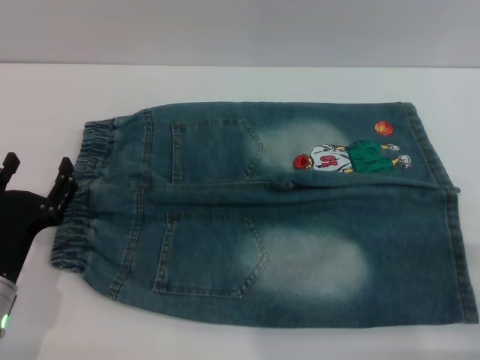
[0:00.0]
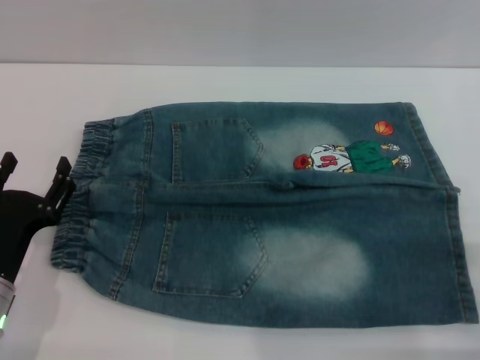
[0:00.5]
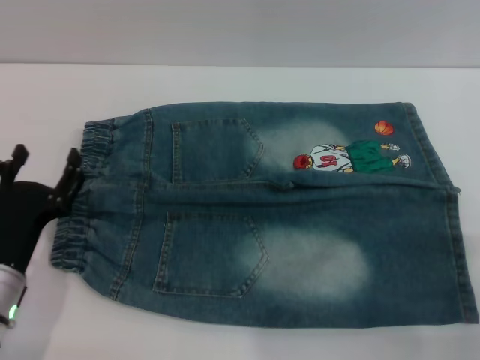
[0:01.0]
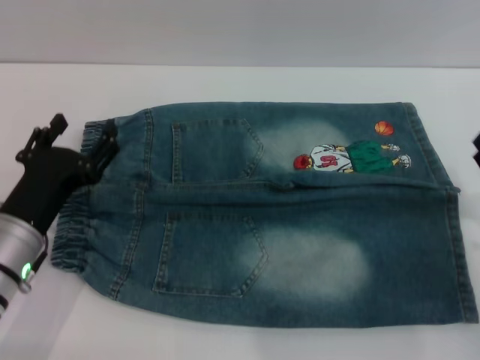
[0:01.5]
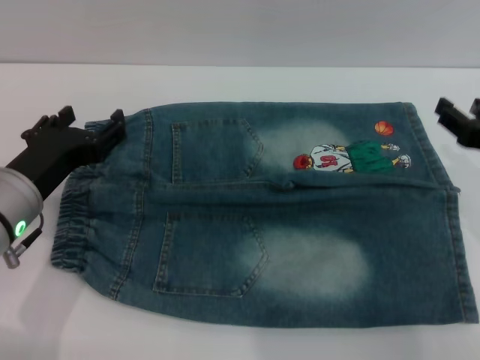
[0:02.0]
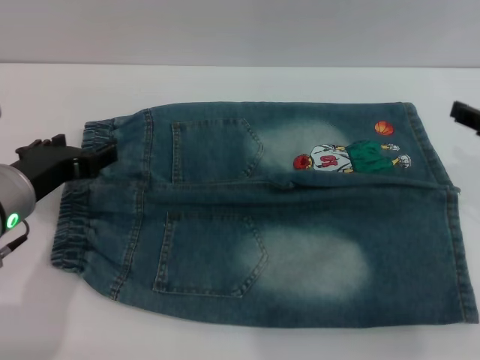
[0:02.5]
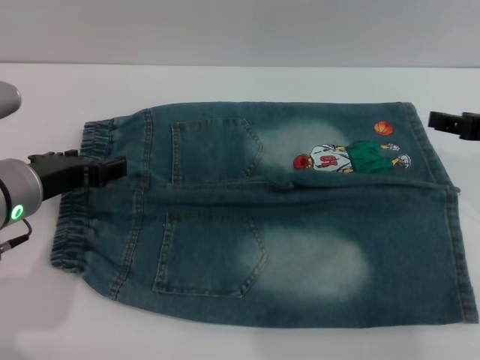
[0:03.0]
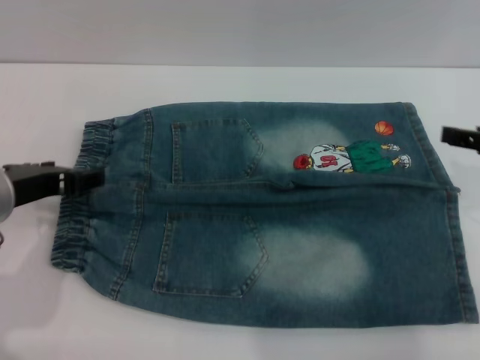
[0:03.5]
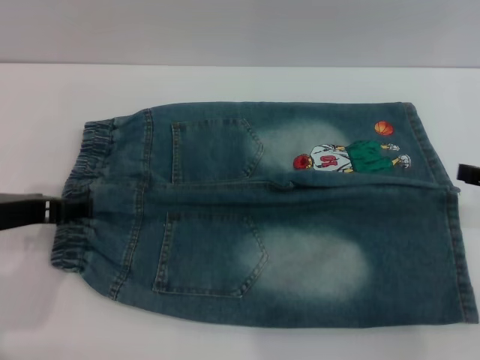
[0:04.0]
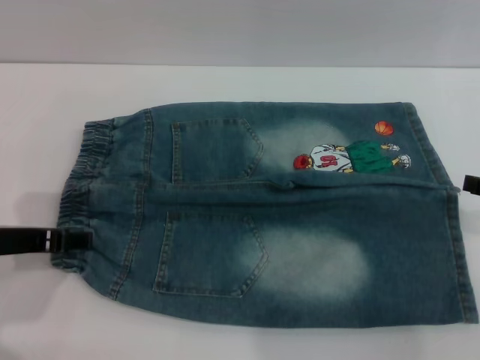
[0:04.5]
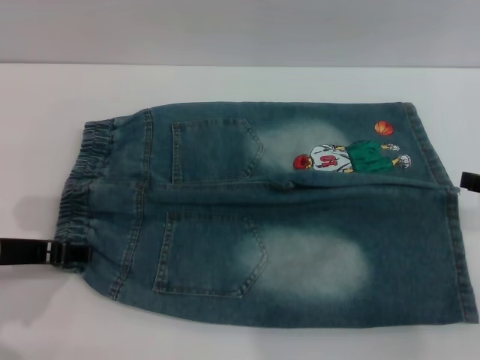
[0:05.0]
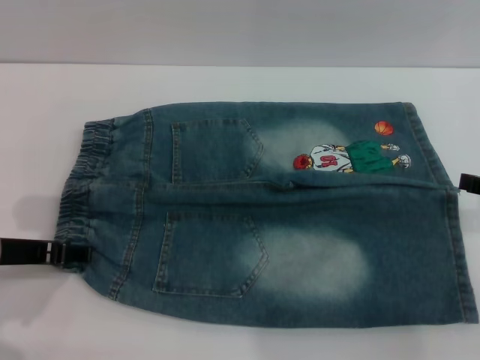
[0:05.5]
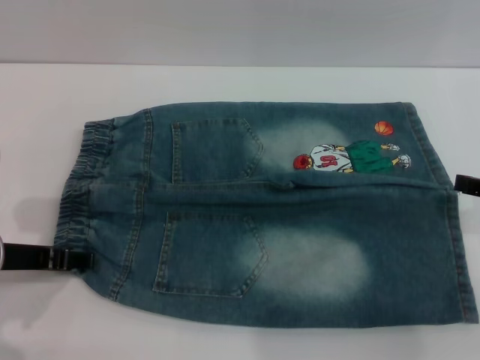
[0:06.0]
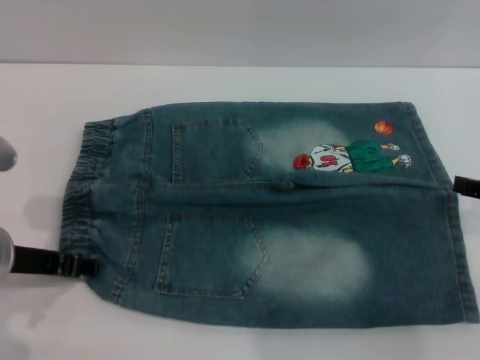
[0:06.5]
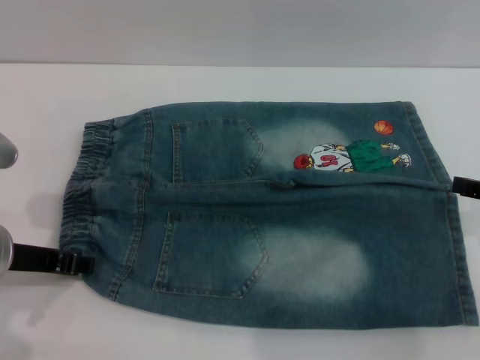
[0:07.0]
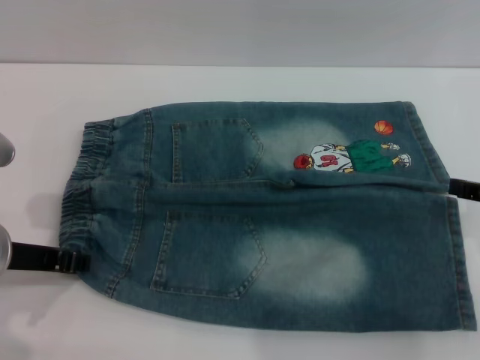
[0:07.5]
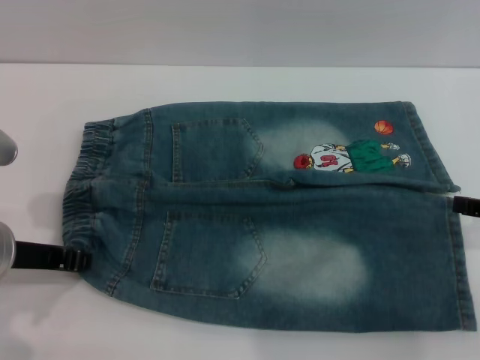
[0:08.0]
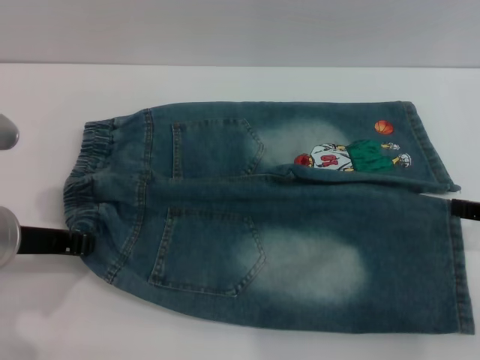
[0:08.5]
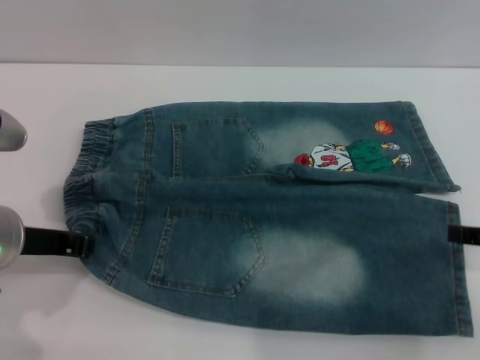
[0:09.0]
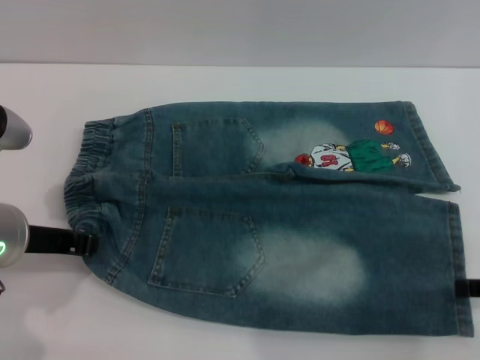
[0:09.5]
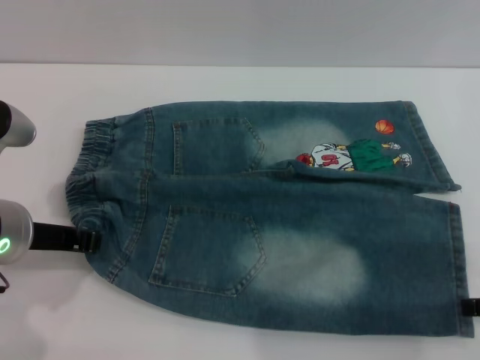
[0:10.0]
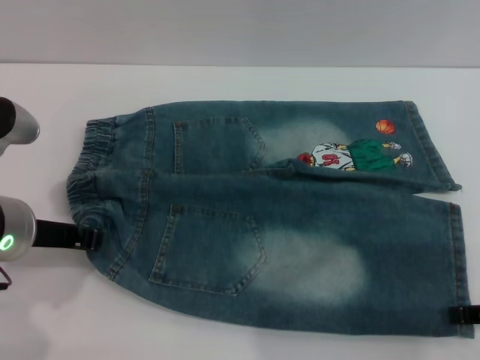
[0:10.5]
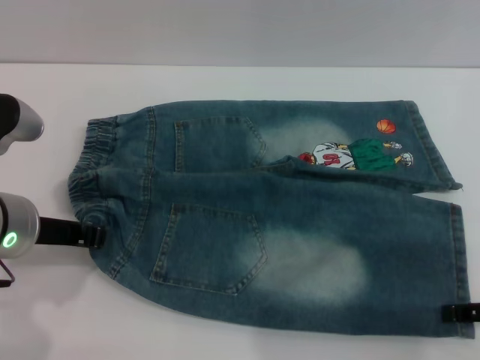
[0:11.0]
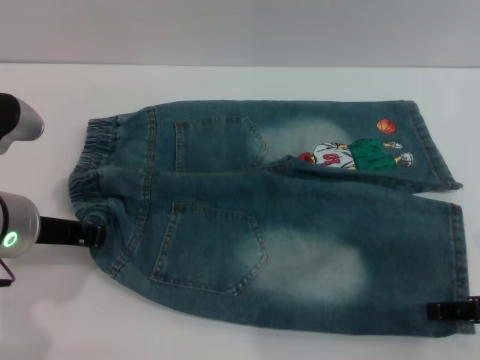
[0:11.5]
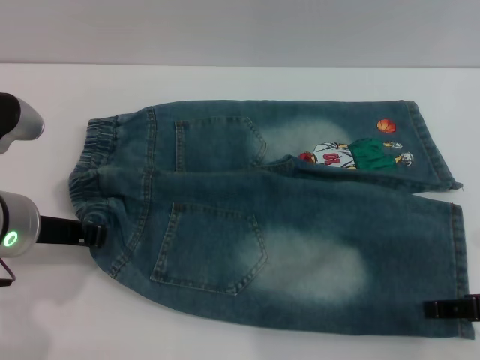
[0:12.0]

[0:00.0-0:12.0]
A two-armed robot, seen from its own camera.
0:00.0 to 0:02.0: Both grippers travel together upward and forward, approximately 15 cm.
0:02.0 to 0:04.0: The left gripper moves roughly 5 cm. The right gripper ends up roughly 5 cm from where it was.
0:04.0 to 0:06.0: The grippers make only small movements.
0:06.0 to 0:08.0: The left gripper closes up.
0:08.0 to 0:10.0: There are only small adjustments of the grippers.
0:10.0 to 0:12.0: The grippers make only small movements.

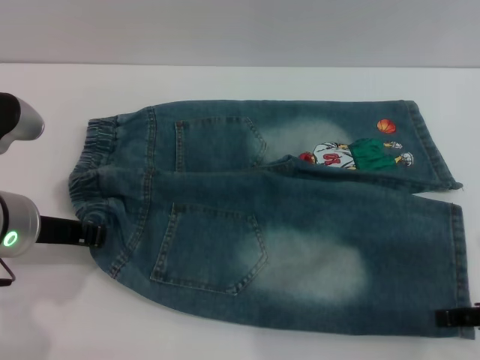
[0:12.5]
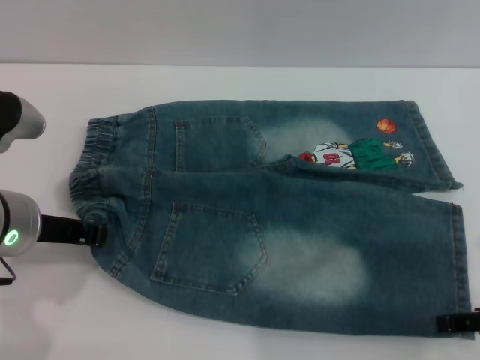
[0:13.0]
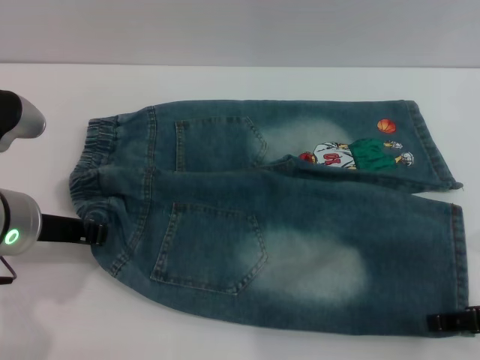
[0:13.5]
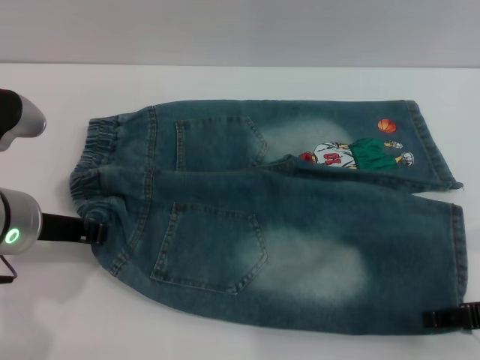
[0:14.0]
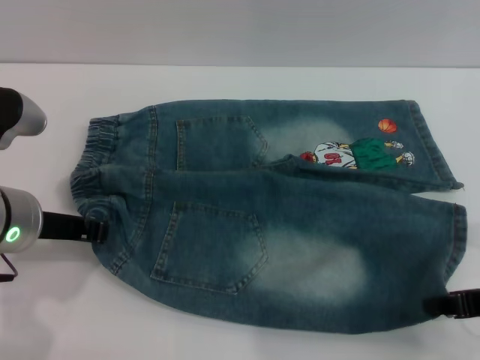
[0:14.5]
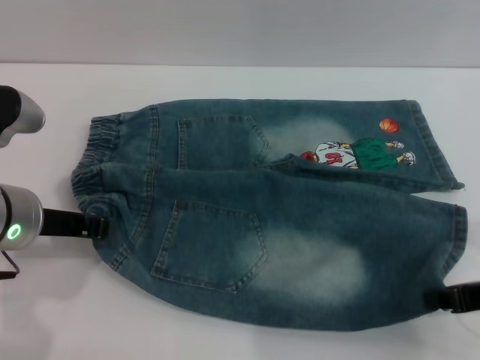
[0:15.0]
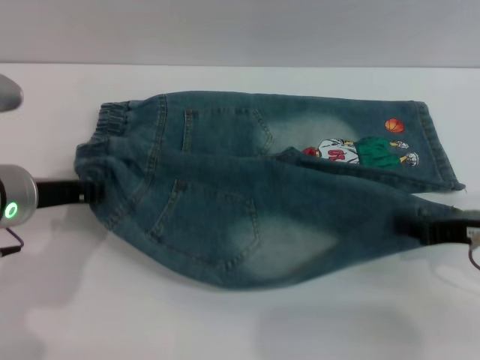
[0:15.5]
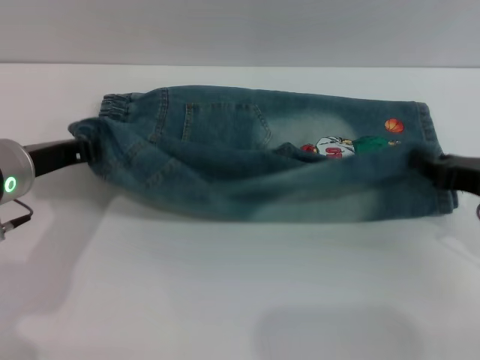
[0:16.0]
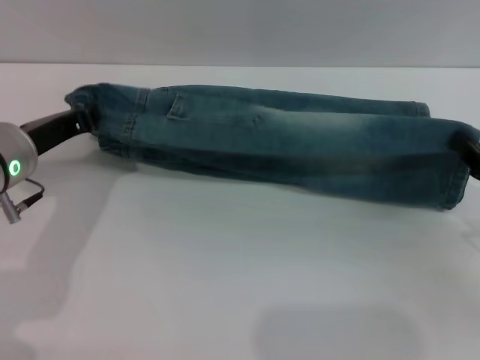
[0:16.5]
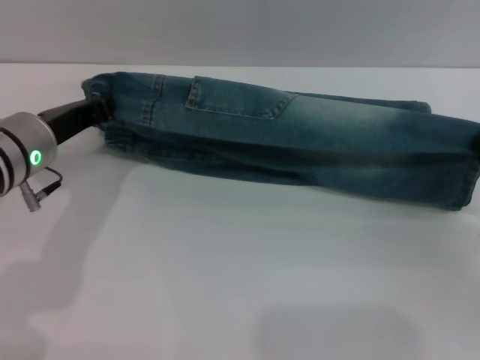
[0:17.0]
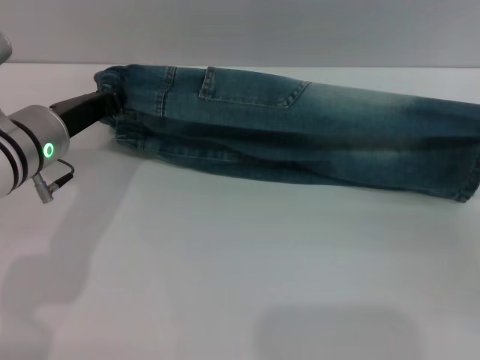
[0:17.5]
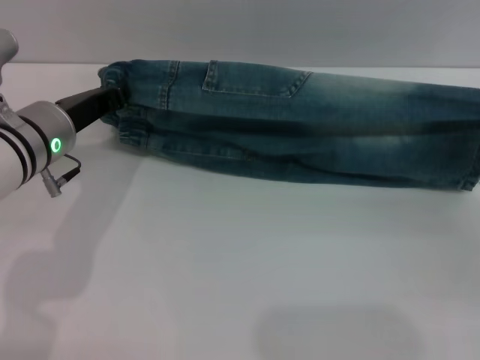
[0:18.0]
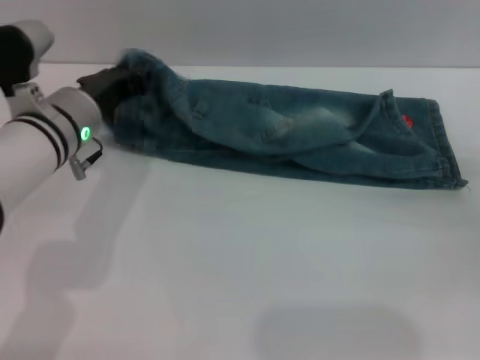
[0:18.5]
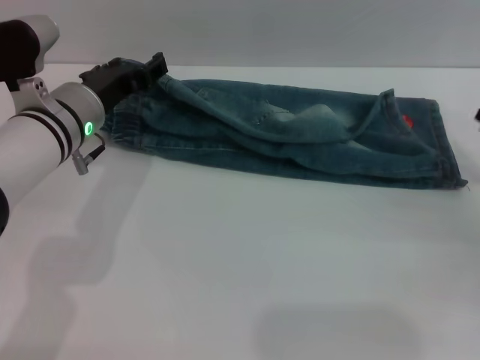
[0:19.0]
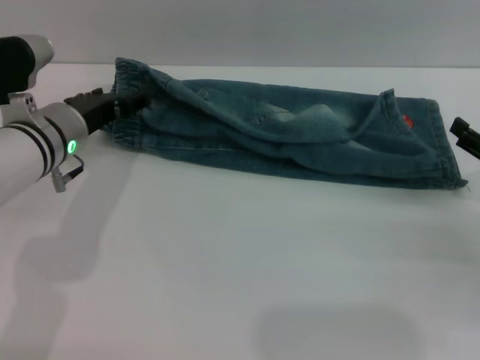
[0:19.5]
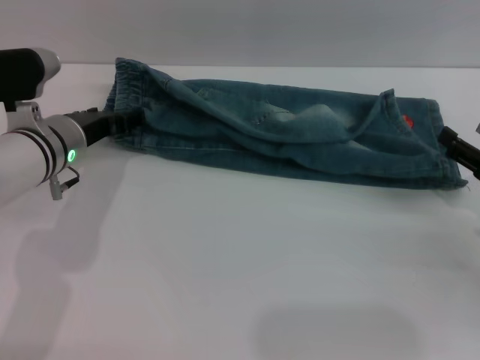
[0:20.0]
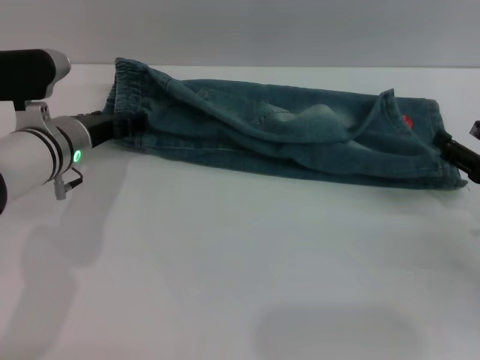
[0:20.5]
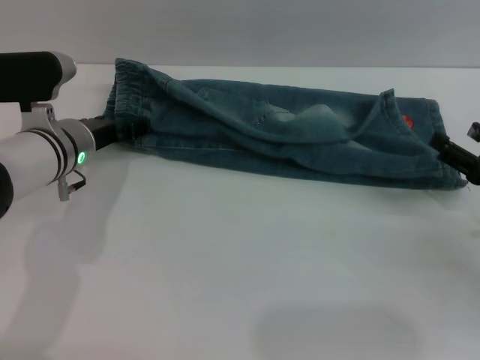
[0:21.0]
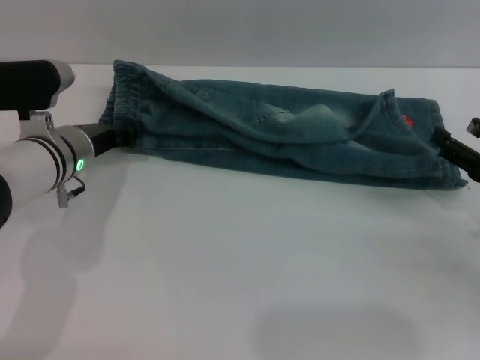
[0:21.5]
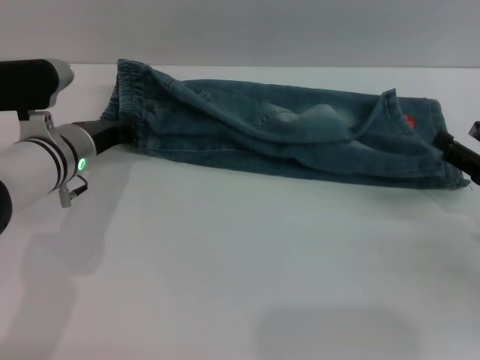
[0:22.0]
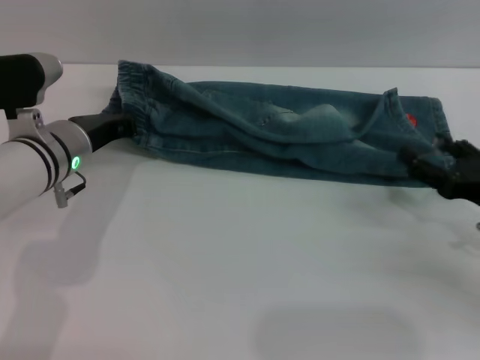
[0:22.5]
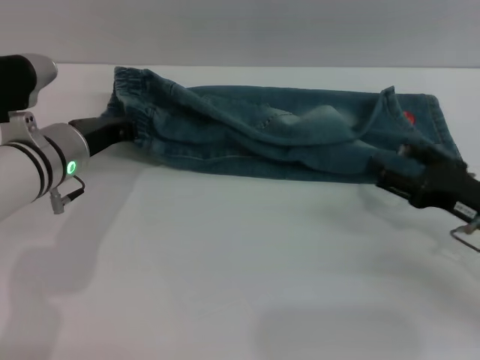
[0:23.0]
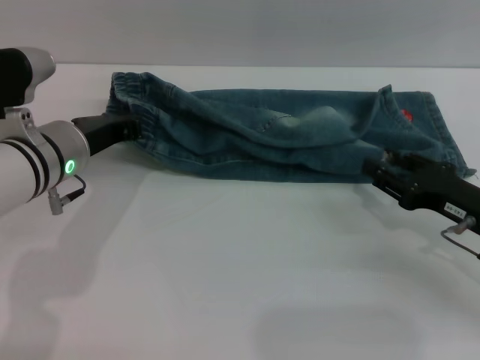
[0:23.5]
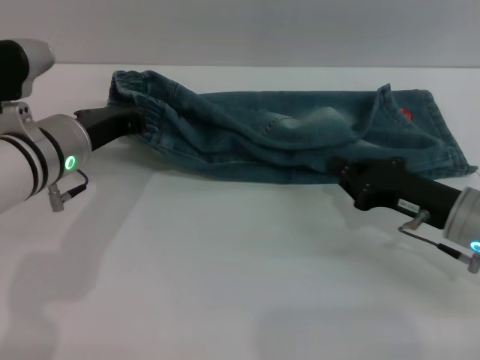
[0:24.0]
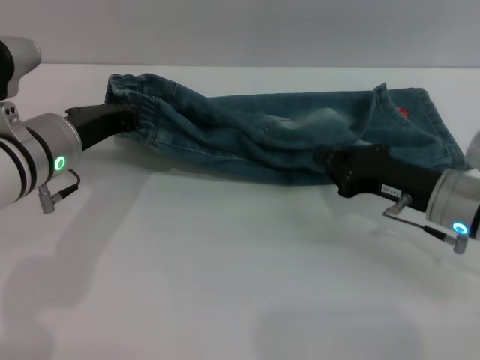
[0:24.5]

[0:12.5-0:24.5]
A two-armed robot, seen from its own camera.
Step, 0:12.5 to 0:19.0: Fold the bottom of the pants upward with both grippers.
0:12.5 to 0:14.5: The grippers stay close to where they were, moving slightly.
0:14.5 to 0:16.5: The right gripper moves approximately 5 cm, and closes up.
0:16.5 to 0:18.5: The right gripper goes about 10 cm to the right and forward, while the left gripper travels forward by about 5 cm.
0:18.5 to 0:20.5: The right gripper ends up some 5 cm from where it was, and opens its fingers. The left gripper opens up.
0:20.5 to 0:22.5: The left gripper closes up.
0:22.5 to 0:24.5: The right gripper is displaced to the left by about 10 cm, and closes up. The left gripper changes place by some 5 cm.

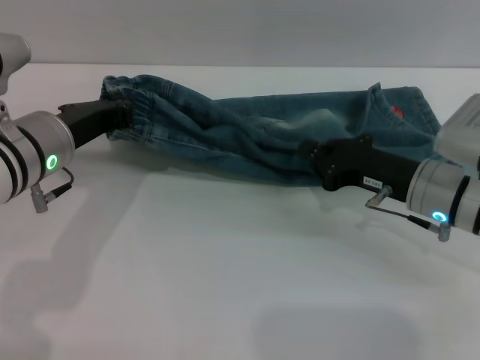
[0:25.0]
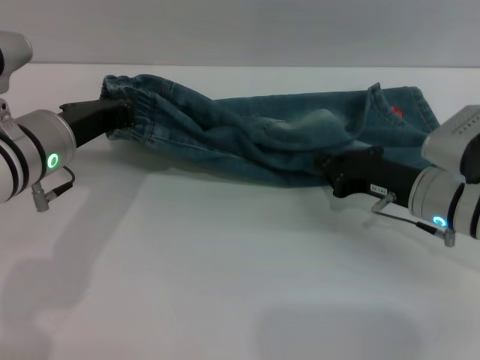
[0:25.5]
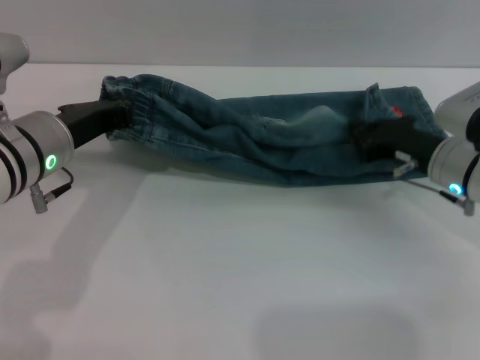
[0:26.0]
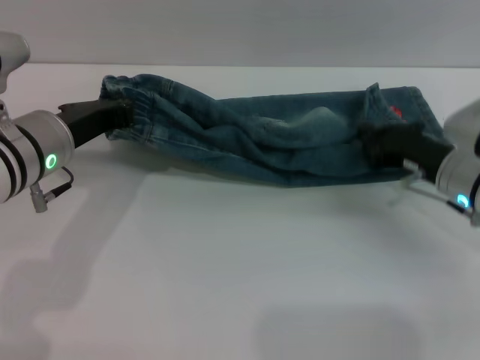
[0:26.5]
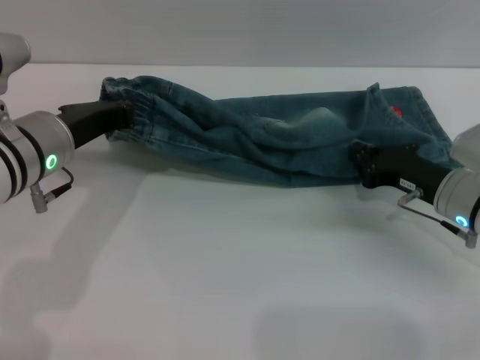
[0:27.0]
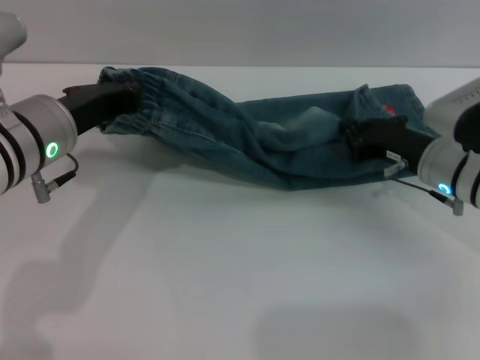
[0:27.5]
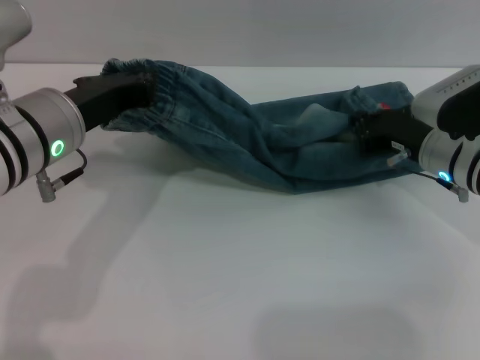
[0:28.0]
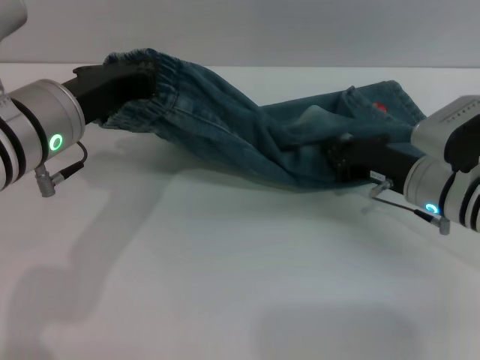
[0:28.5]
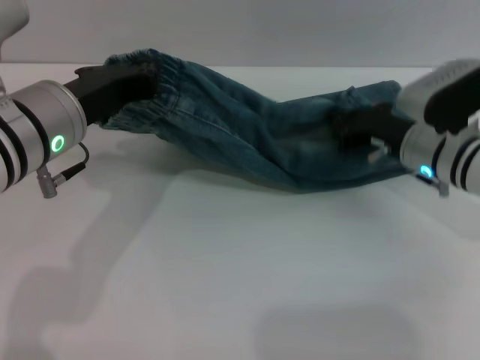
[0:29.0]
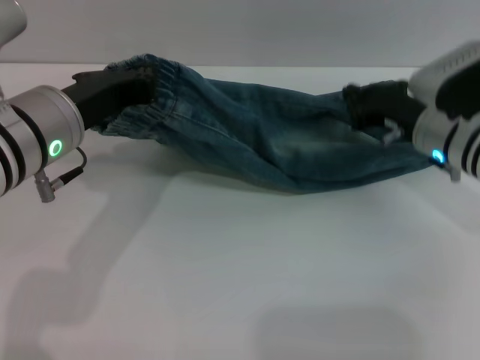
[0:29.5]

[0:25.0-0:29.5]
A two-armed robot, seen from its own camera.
0:27.0 to 0:29.5: The left gripper ends up about 5 cm from where it was. Meanwhile the right gripper is displaced forward by roughly 5 cm.
